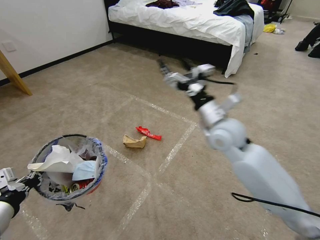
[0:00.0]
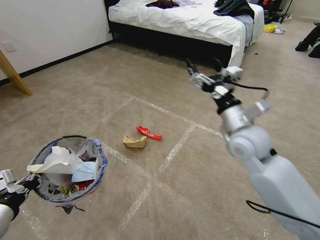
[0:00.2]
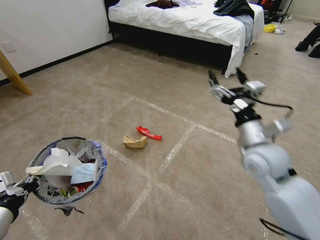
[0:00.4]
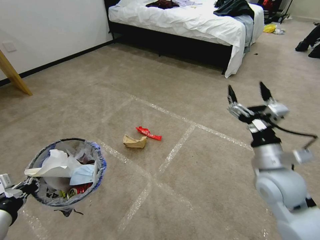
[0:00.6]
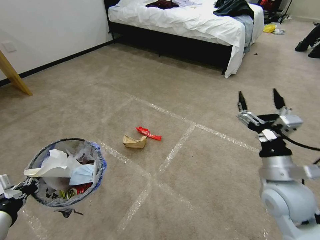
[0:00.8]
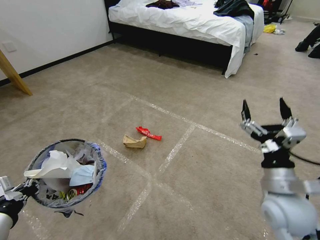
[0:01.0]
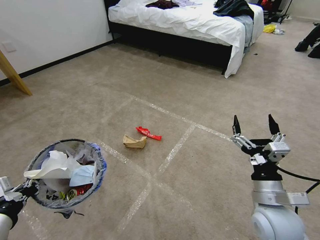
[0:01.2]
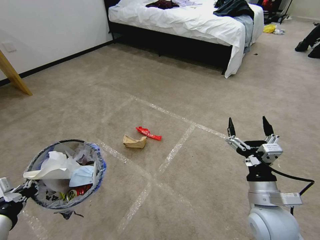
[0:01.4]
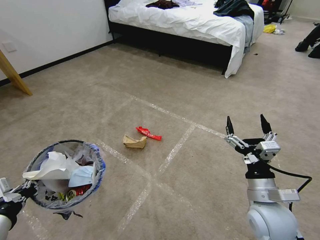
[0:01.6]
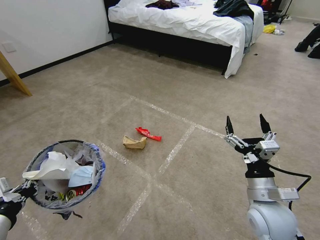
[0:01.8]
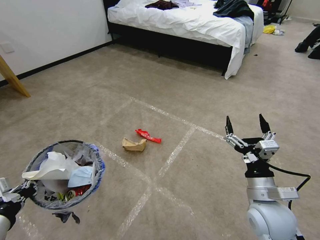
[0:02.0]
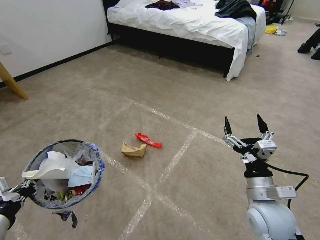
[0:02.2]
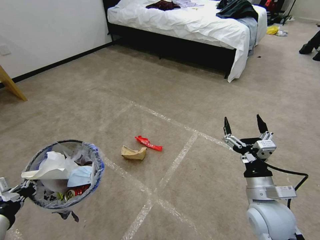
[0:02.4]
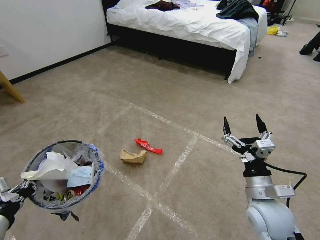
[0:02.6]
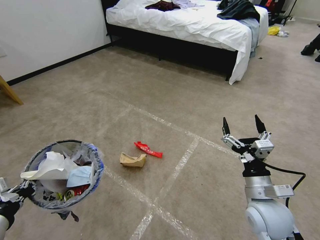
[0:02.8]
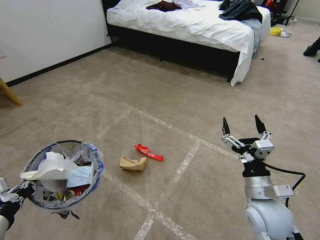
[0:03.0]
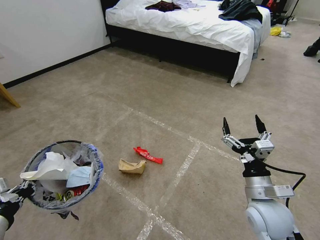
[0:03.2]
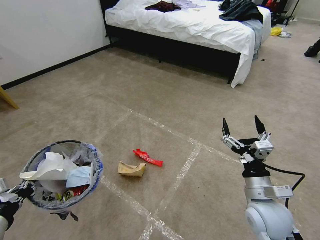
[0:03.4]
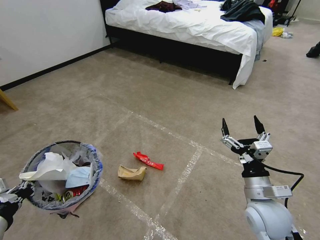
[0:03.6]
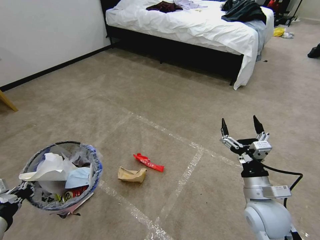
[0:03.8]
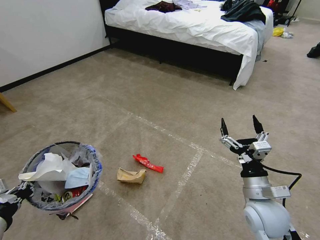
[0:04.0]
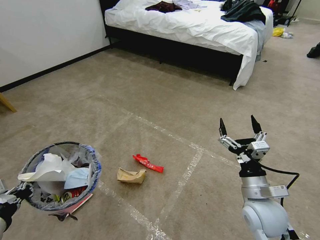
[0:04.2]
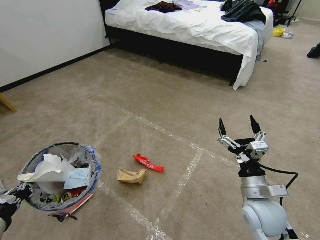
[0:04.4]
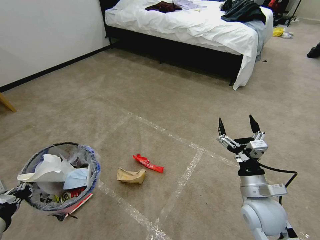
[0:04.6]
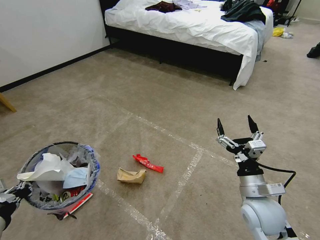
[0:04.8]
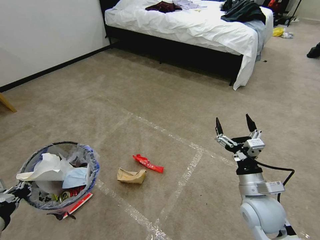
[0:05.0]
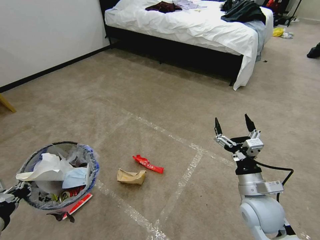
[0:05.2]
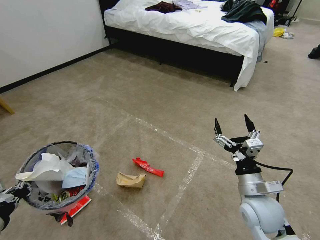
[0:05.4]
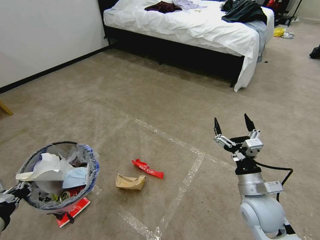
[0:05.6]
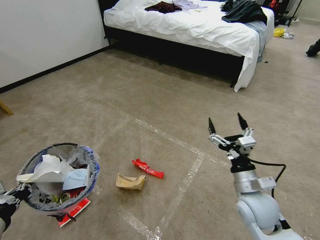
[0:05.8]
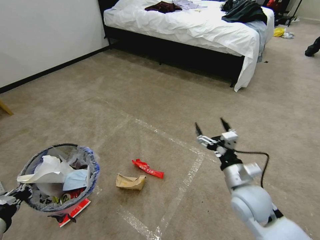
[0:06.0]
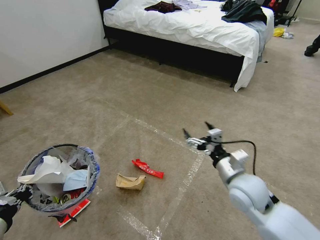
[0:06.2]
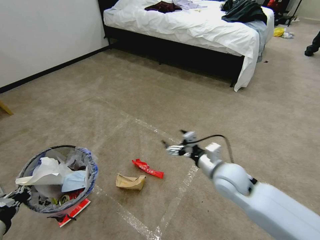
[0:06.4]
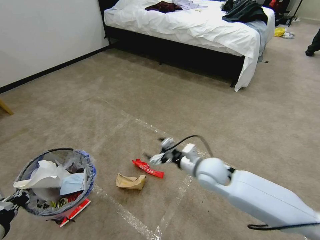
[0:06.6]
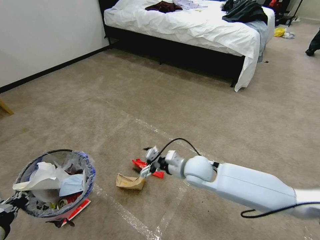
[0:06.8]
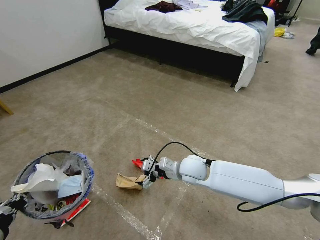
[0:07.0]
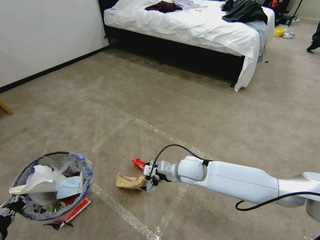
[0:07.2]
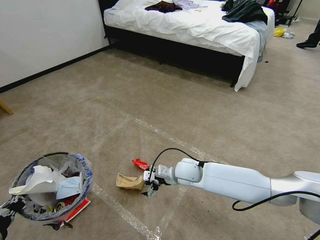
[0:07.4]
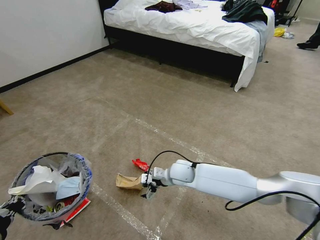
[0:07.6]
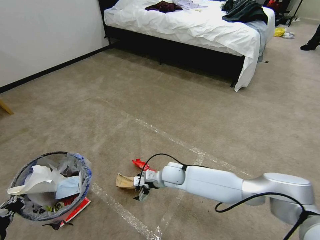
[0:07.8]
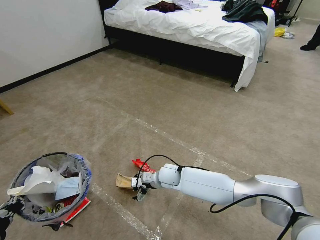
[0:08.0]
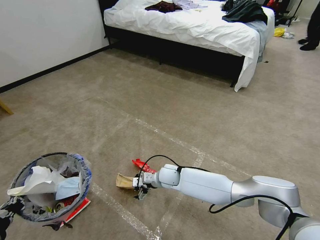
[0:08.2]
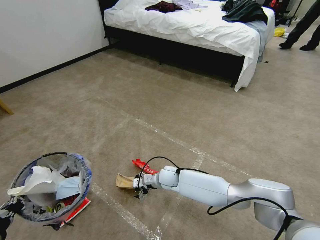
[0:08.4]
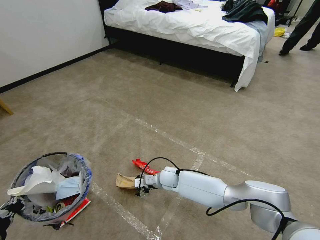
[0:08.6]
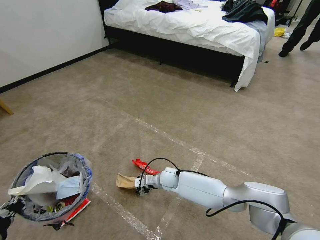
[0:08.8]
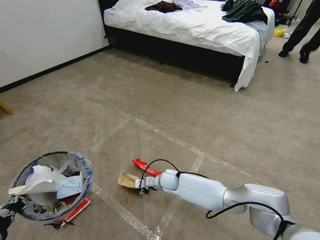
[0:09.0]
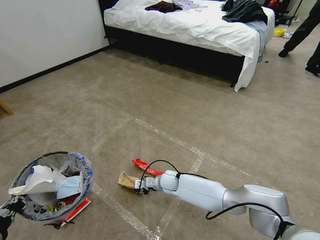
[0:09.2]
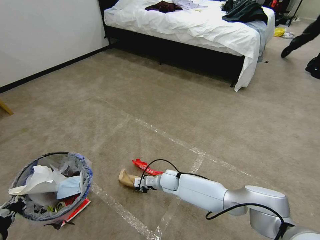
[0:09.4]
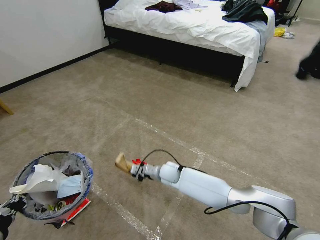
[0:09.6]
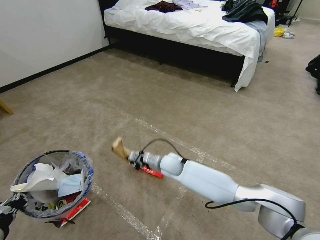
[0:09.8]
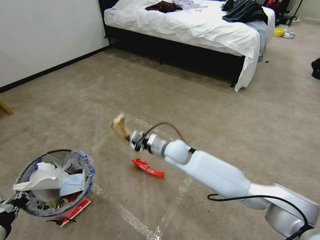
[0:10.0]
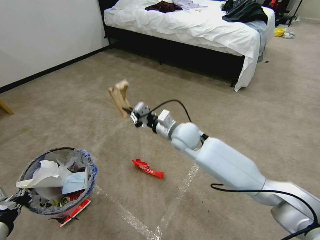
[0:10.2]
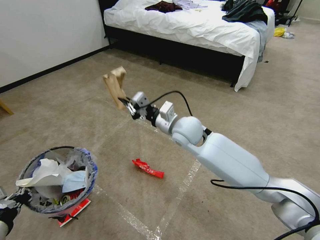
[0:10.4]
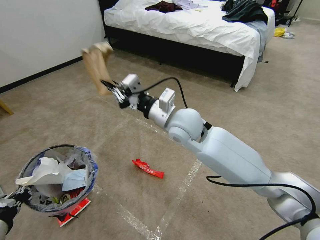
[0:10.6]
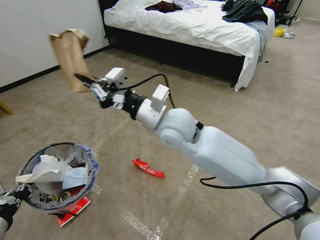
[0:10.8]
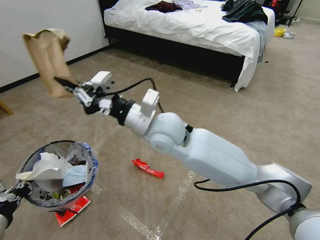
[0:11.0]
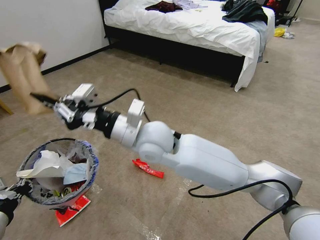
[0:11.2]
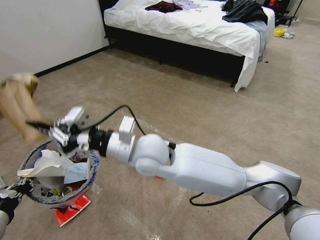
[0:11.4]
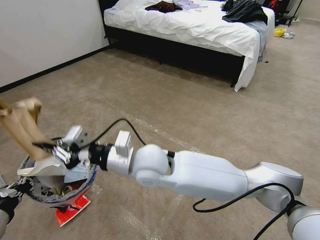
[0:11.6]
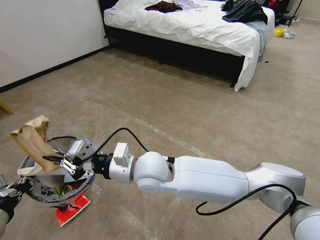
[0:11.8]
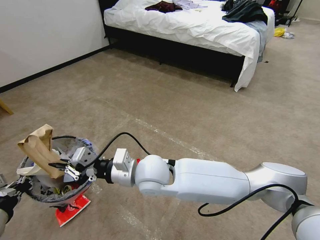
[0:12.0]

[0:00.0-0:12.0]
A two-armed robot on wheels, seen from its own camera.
Task of the whole recording: Pick up the trash bin and place the garbage on the floor into it.
0:00.0 to 0:01.6: The right gripper heads backward, downward and to the right, covering some 25 cm.
0:03.0 to 0:06.0: The grippers move only a little.
0:06.0 to 0:07.6: The right gripper travels to the left, forward and downward by some 25 cm.
0:07.6 to 0:09.0: The right gripper heads downward, covering approximately 10 cm, and closes up.
0:09.0 to 0:10.4: The right gripper is displaced upward by approximately 30 cm, and closes its fingers.
0:10.4 to 0:12.0: The right gripper moves backward and to the left, about 15 cm.

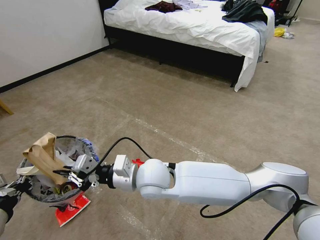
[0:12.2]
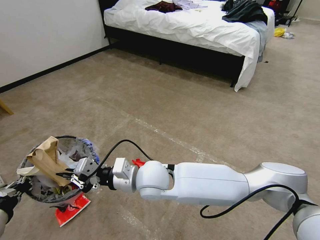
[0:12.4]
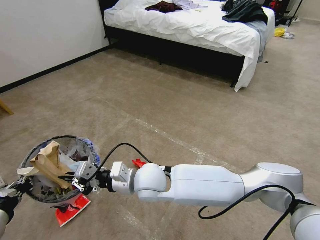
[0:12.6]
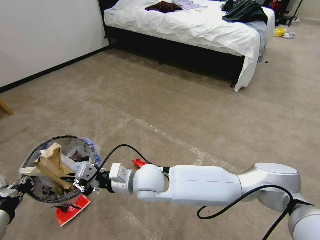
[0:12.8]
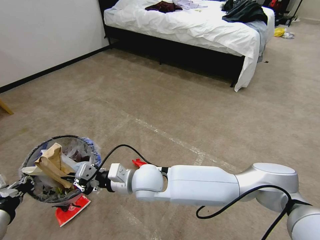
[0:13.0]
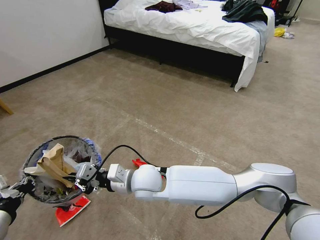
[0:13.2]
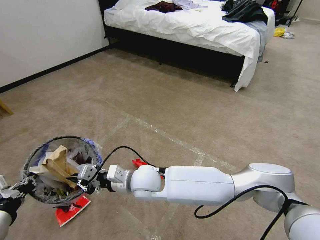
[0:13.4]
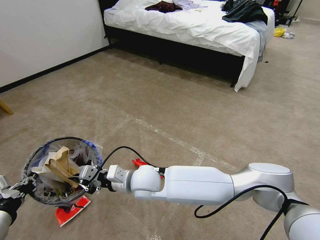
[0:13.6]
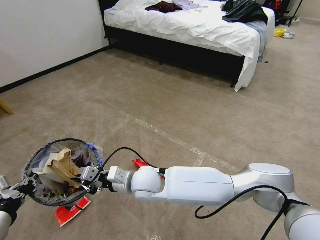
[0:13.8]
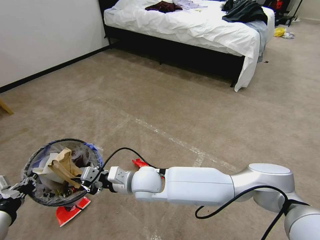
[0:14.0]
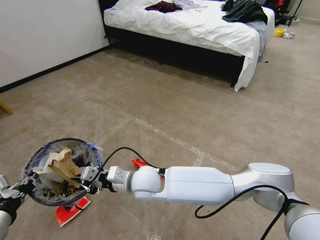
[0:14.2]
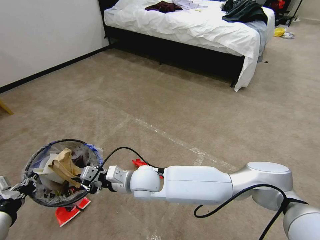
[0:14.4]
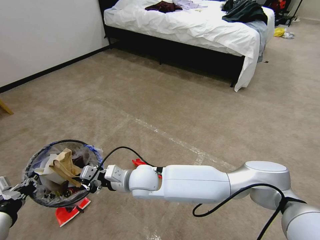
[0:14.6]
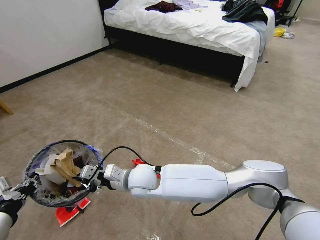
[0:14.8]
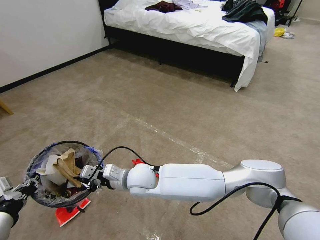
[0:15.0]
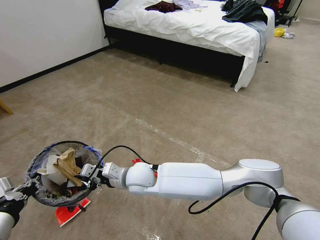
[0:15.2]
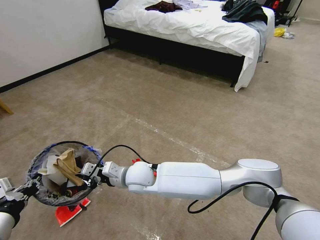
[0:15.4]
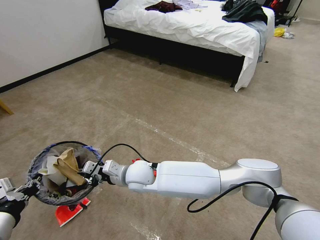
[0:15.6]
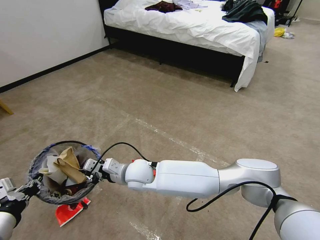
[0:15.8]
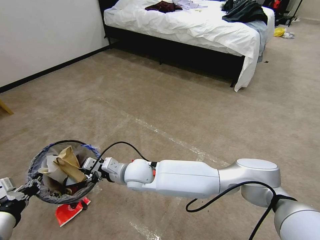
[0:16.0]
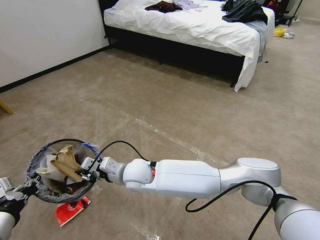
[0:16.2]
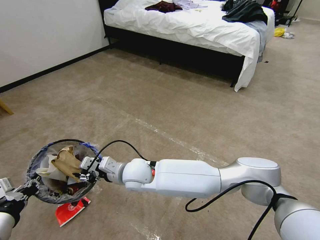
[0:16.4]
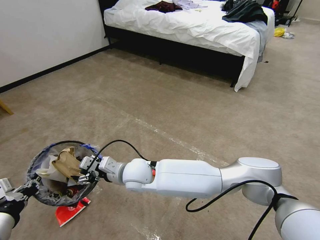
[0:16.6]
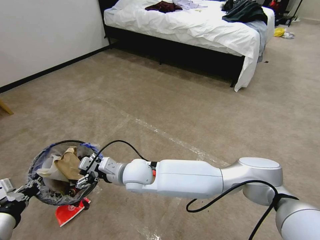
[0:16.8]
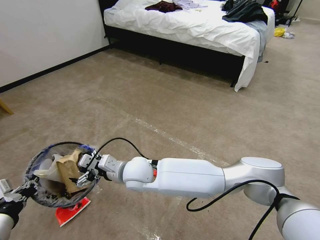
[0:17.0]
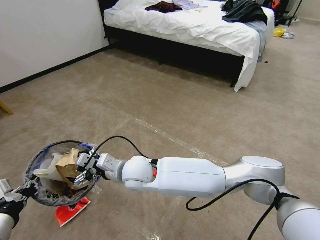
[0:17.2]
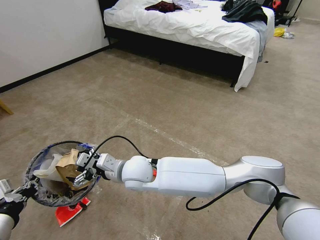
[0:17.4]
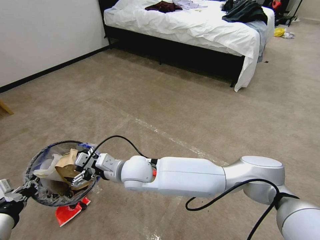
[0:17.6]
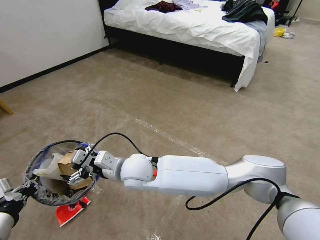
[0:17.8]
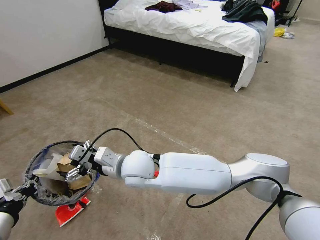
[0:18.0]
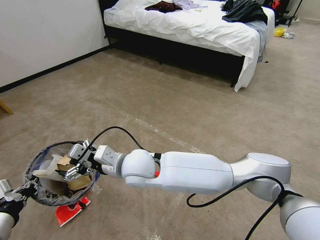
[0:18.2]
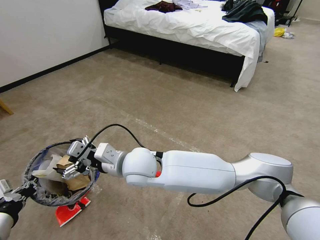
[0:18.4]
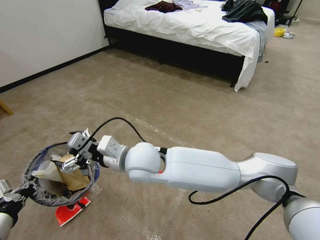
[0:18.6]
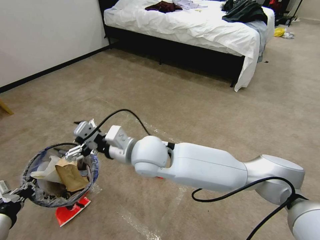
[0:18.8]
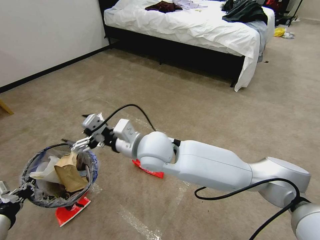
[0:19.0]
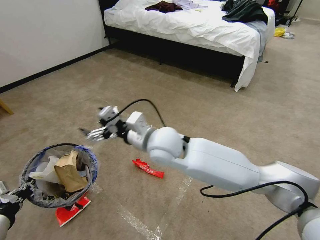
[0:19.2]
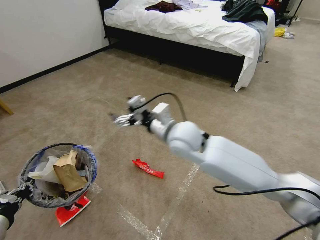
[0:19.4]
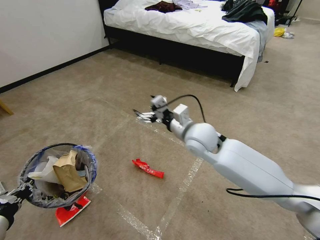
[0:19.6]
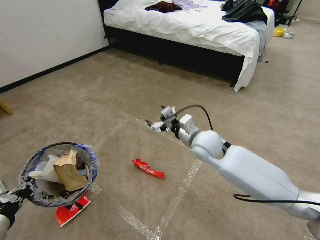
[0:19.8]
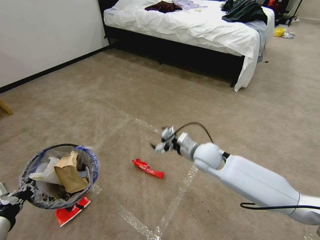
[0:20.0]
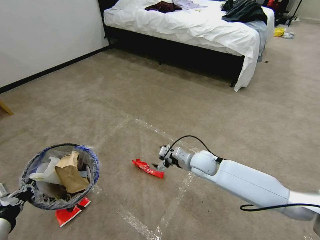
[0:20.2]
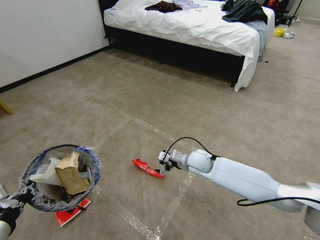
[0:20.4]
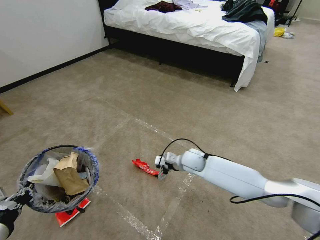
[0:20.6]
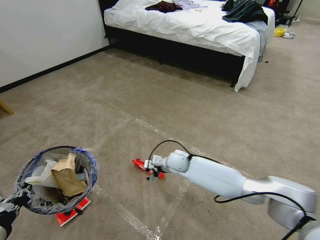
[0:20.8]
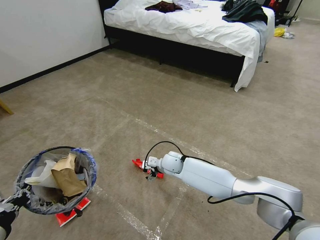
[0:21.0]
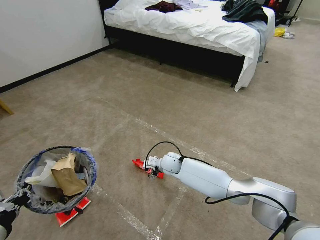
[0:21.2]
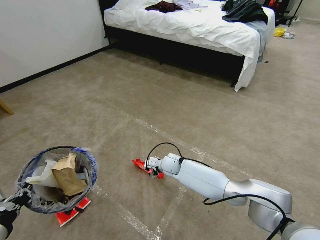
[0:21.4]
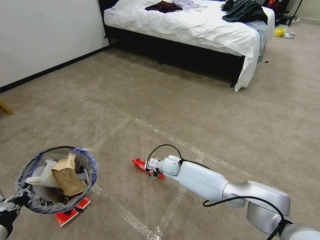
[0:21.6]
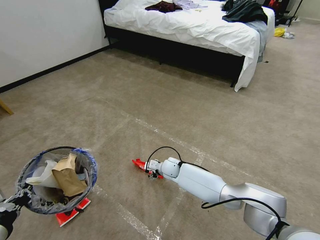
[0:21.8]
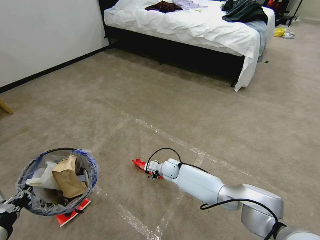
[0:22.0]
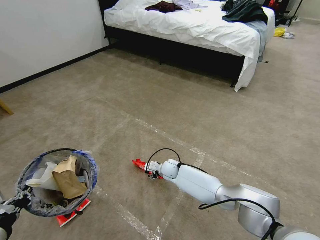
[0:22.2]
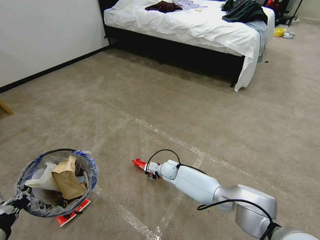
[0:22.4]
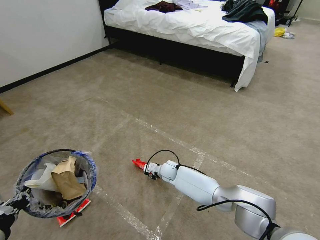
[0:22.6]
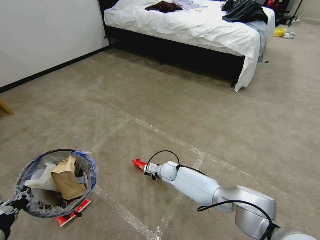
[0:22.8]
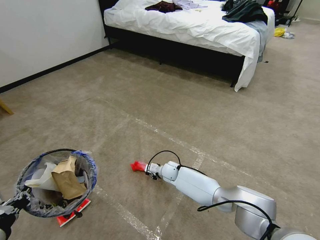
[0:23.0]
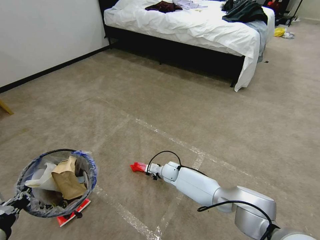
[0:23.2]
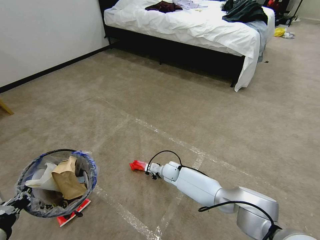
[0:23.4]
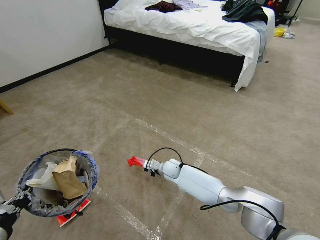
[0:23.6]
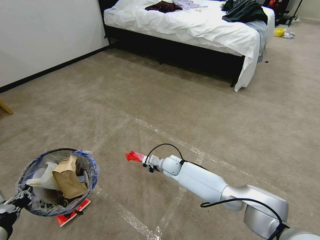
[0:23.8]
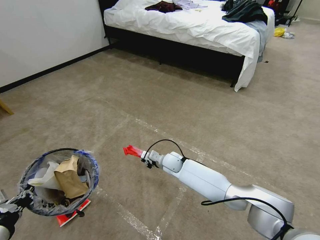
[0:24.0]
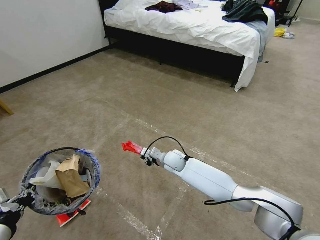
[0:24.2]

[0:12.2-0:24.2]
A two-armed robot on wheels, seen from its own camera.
Task of the whole recording: Pick up the trash bin and place the garbage on the floor into it.
0:12.2 to 0:13.8: The right gripper travels downward by roughly 5 cm.
0:13.8 to 0:15.2: The grippers stay close to where they were, moving slightly.
0:15.2 to 0:16.6: The right gripper opens up.
0:16.6 to 0:18.2: The right gripper moves upward, some 5 cm.
0:18.2 to 0:19.8: The right gripper shifts approximately 25 cm to the right and forward.
0:19.8 to 0:21.2: The right gripper goes roughly 20 cm downward and to the left.
0:21.2 to 0:22.6: The right gripper goes some 5 cm downward, and closes.
0:22.6 to 0:24.2: The right gripper goes approximately 10 cm upward, and closes.
